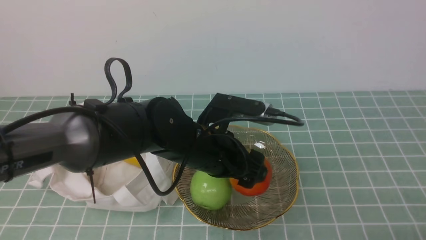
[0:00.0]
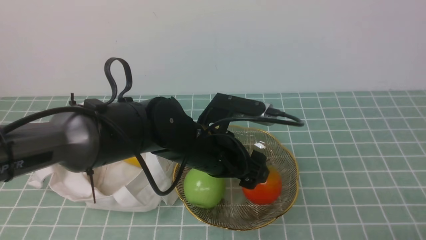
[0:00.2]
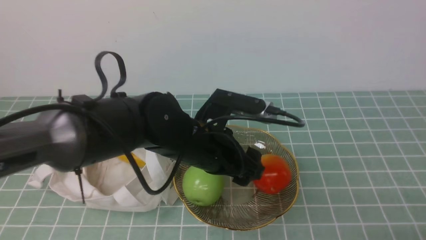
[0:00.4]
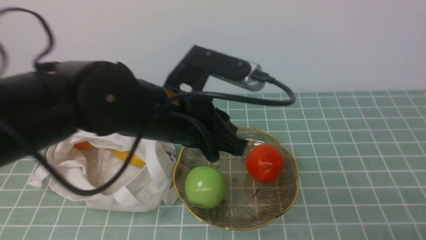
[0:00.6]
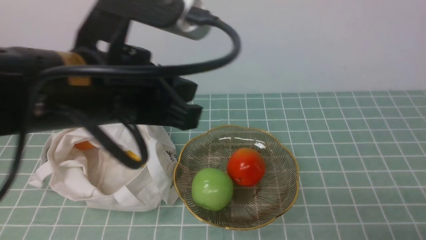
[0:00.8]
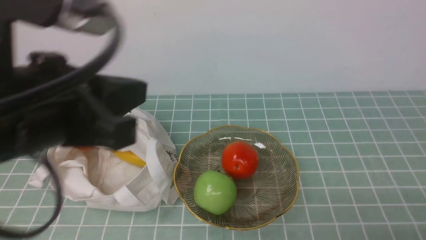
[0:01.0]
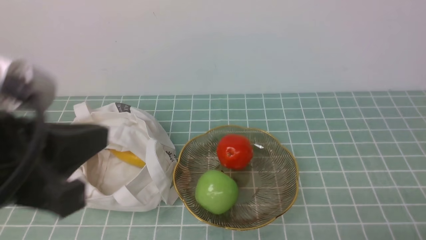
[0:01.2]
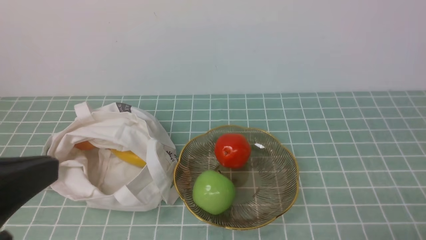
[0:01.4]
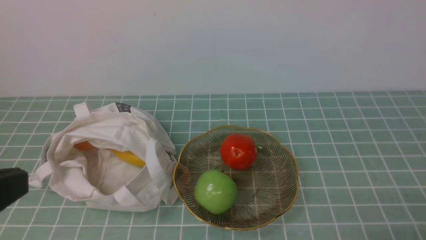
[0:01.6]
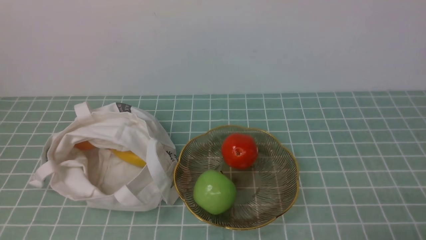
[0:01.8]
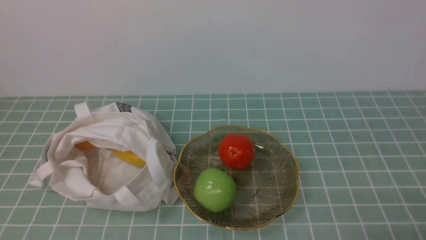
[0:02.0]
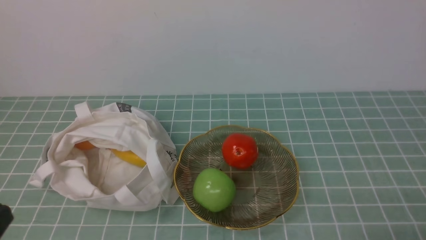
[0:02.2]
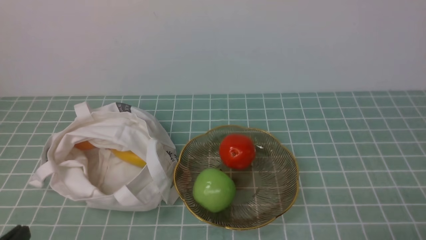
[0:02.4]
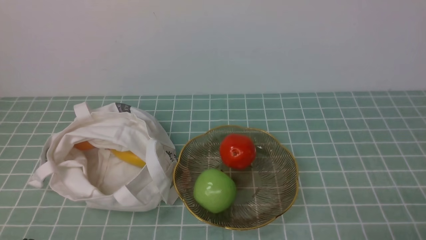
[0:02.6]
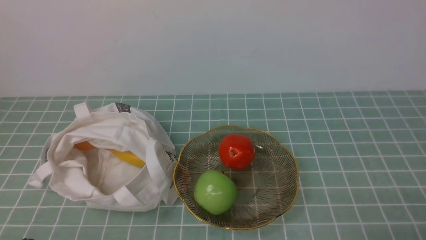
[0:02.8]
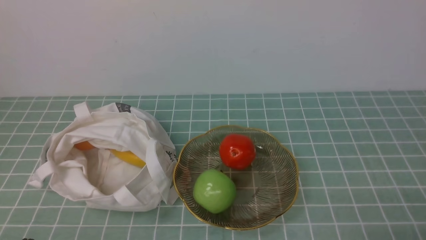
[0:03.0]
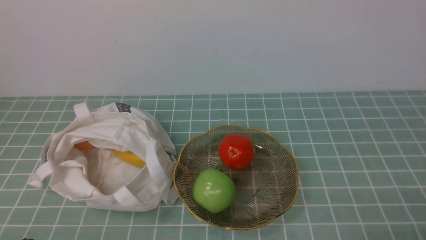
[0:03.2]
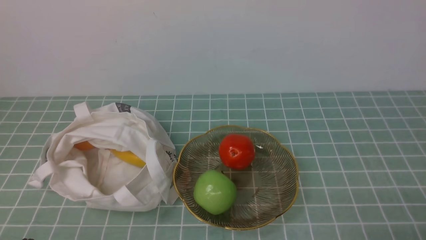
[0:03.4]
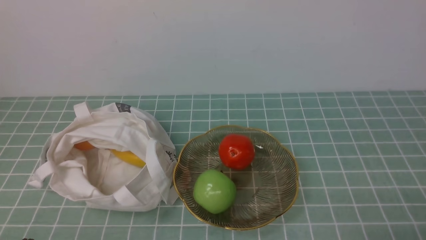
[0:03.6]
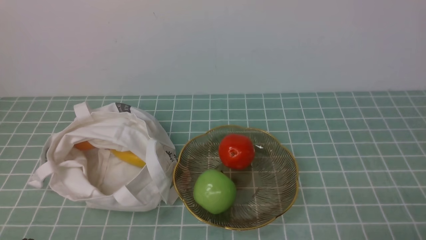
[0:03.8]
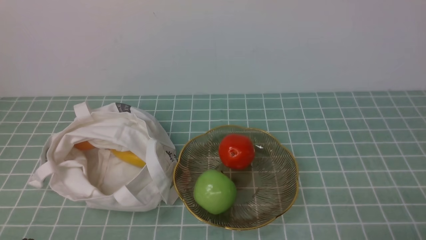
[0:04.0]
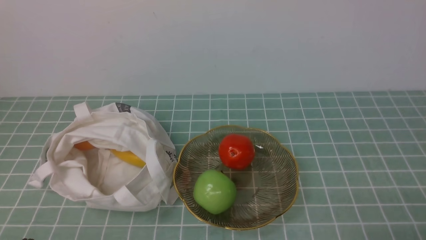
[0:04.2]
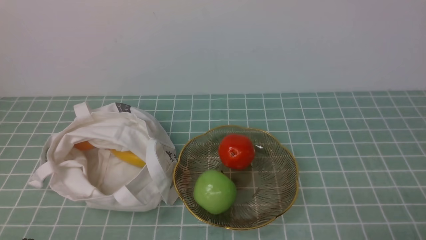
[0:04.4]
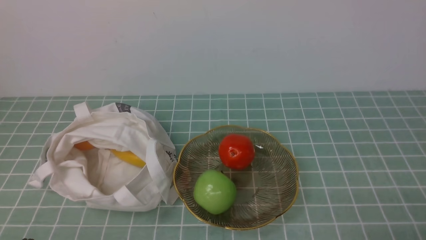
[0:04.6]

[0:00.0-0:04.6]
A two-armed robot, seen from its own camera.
0:00.0 to 0:01.6: The left gripper heads backward, to the left and upward, covering about 35 cm, and closes up.
0:01.6 to 0:03.0: The left gripper goes roughly 20 cm downward.
0:03.0 to 0:04.6: Both grippers stay about where they are.

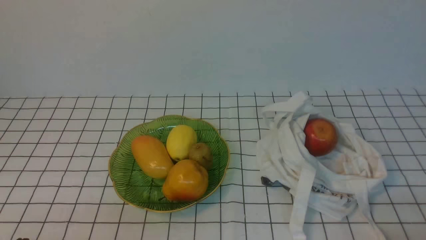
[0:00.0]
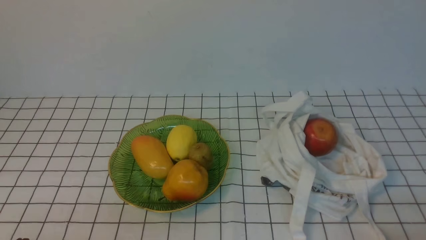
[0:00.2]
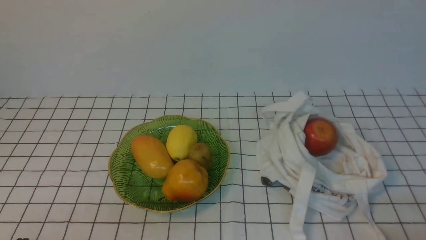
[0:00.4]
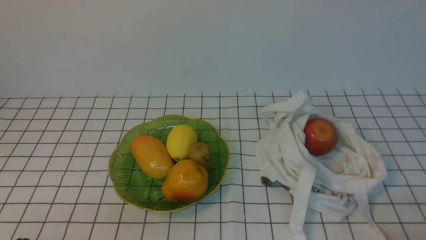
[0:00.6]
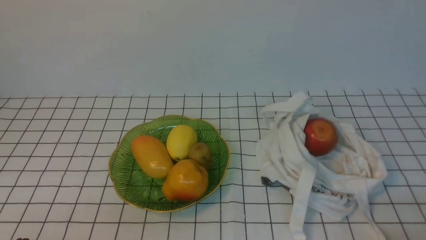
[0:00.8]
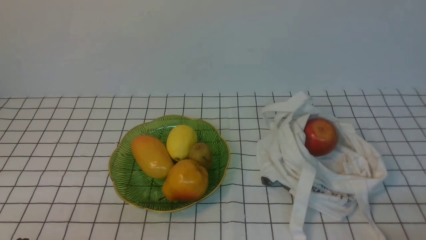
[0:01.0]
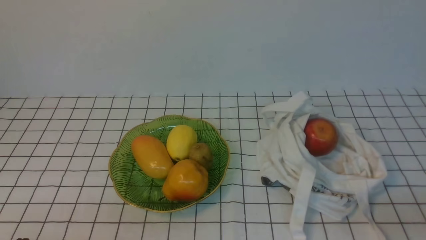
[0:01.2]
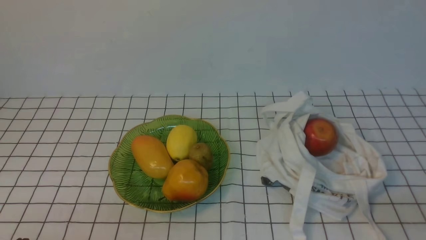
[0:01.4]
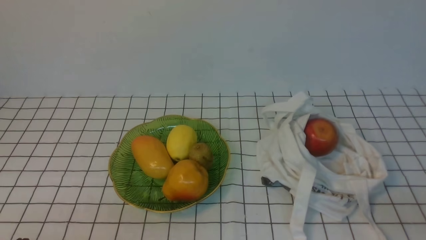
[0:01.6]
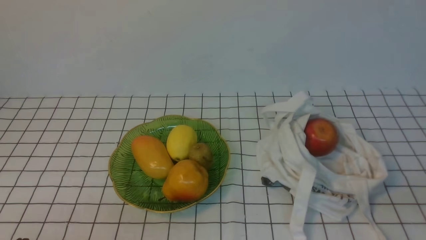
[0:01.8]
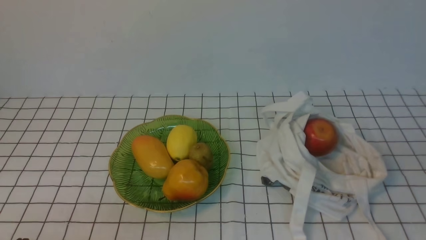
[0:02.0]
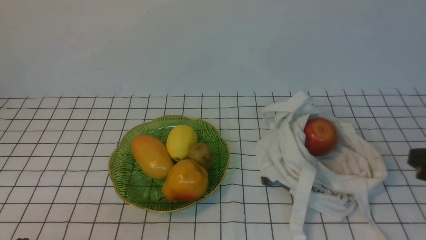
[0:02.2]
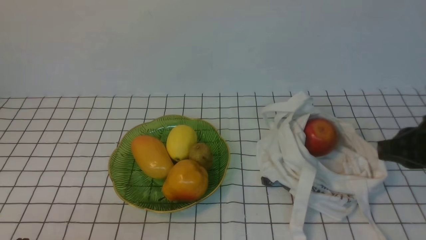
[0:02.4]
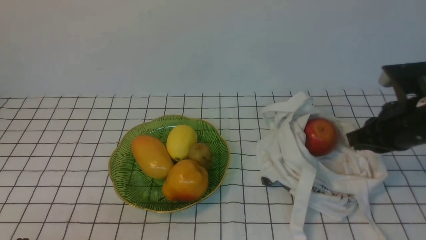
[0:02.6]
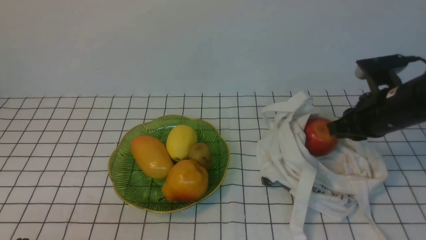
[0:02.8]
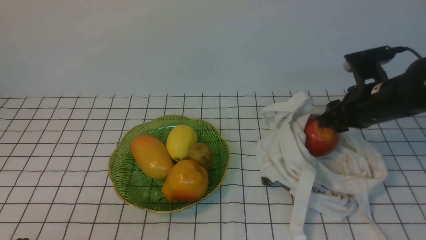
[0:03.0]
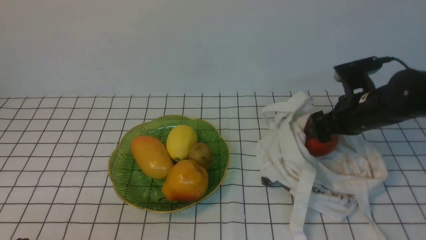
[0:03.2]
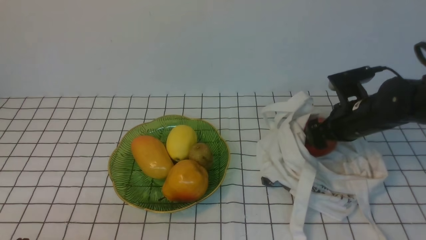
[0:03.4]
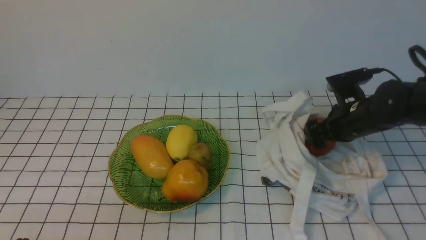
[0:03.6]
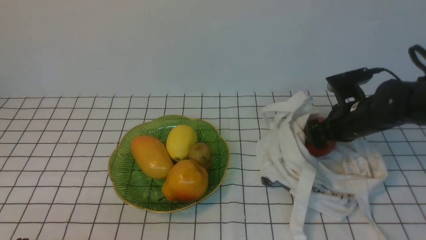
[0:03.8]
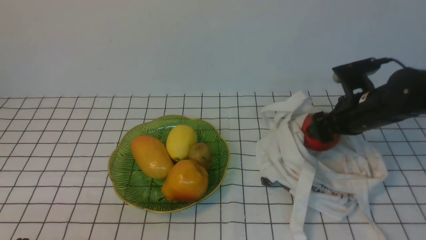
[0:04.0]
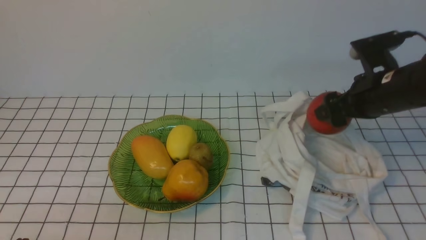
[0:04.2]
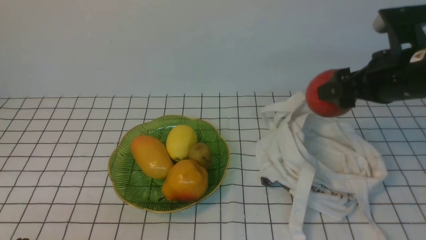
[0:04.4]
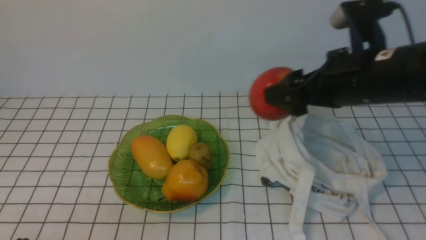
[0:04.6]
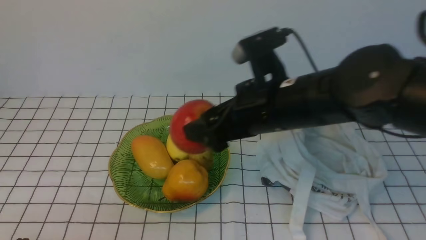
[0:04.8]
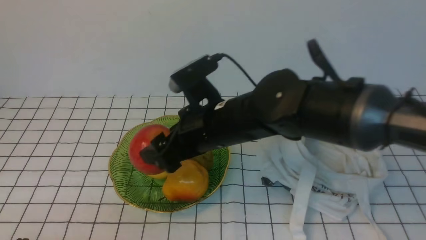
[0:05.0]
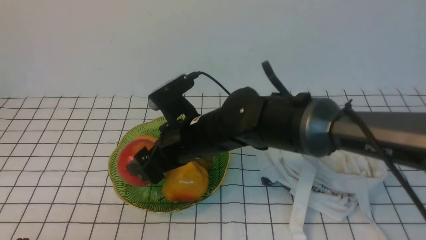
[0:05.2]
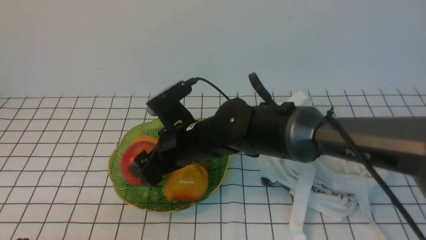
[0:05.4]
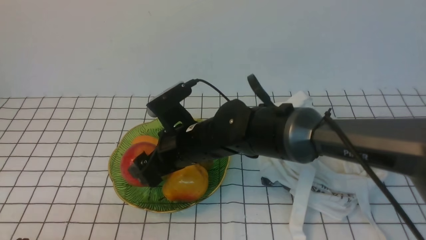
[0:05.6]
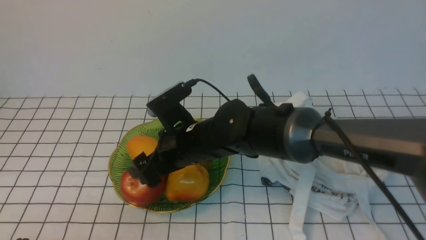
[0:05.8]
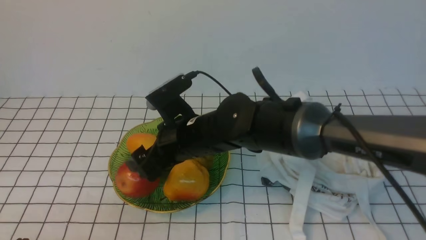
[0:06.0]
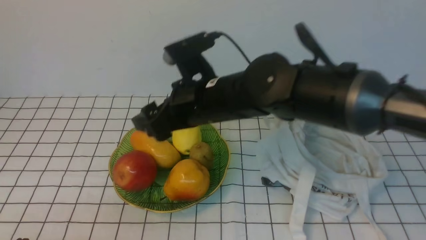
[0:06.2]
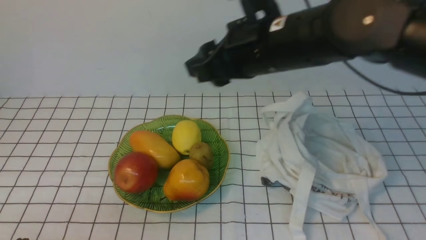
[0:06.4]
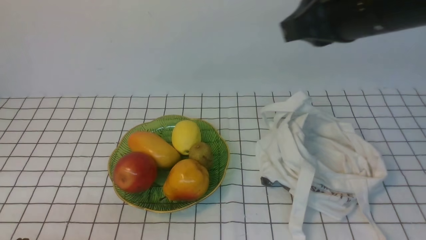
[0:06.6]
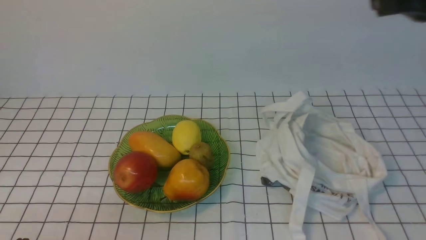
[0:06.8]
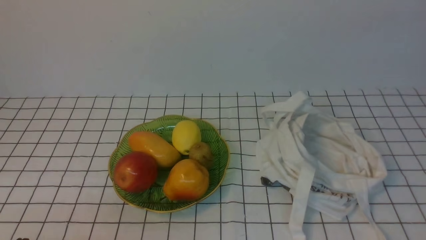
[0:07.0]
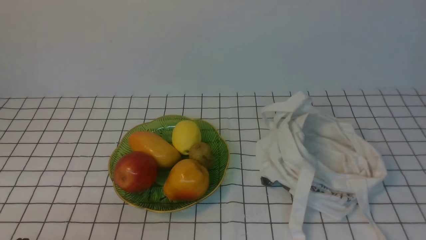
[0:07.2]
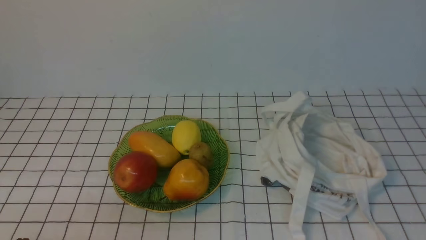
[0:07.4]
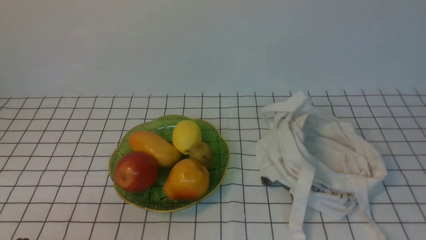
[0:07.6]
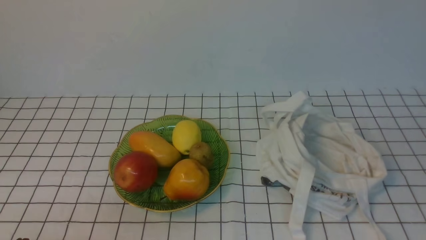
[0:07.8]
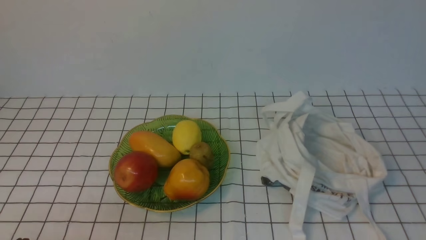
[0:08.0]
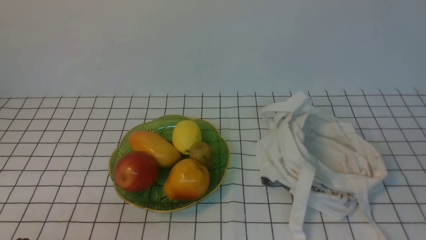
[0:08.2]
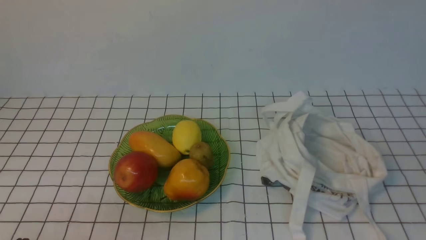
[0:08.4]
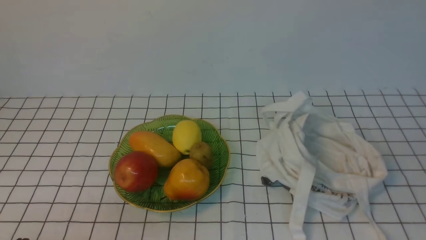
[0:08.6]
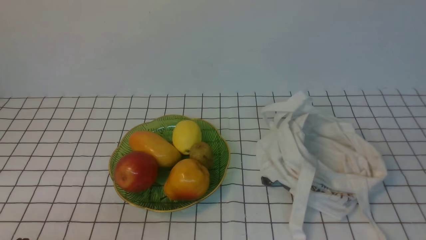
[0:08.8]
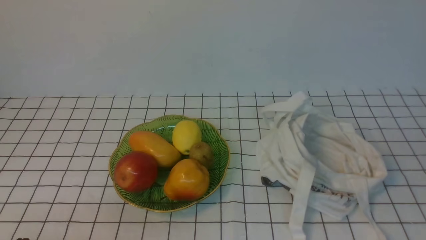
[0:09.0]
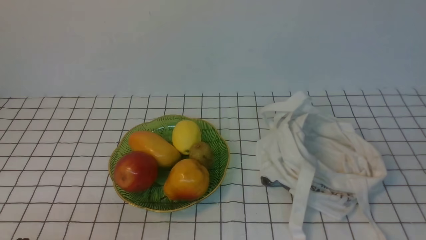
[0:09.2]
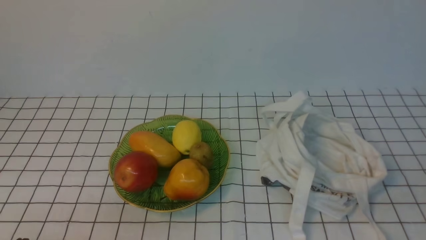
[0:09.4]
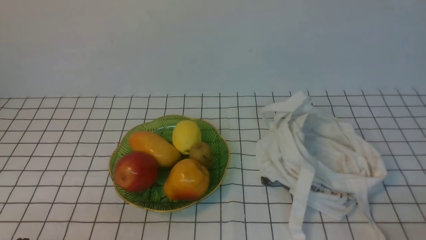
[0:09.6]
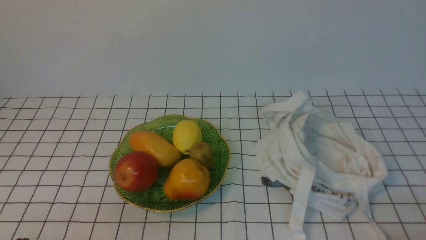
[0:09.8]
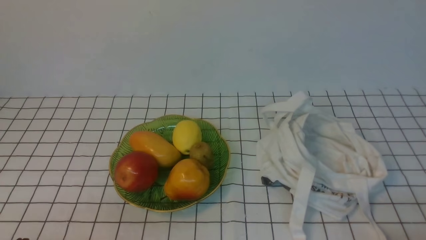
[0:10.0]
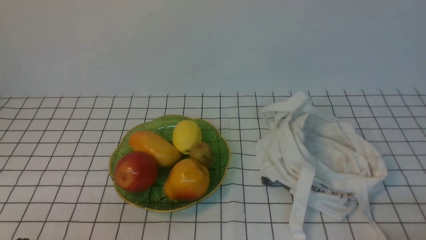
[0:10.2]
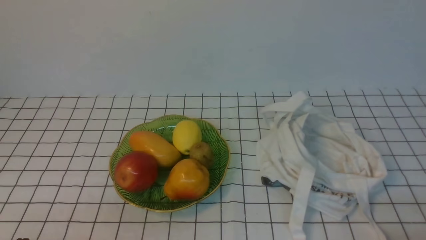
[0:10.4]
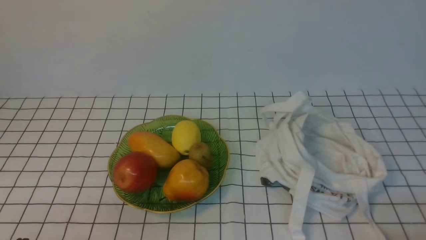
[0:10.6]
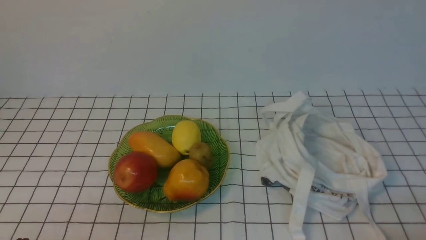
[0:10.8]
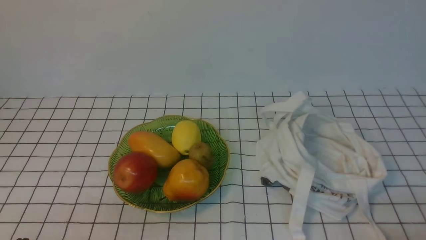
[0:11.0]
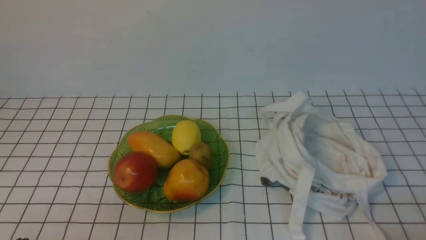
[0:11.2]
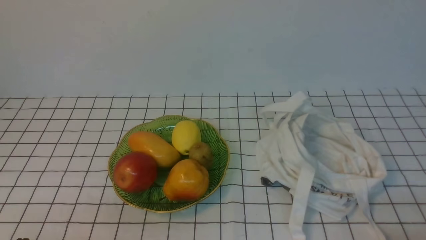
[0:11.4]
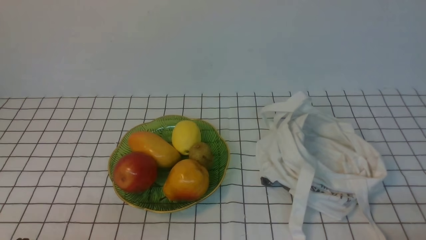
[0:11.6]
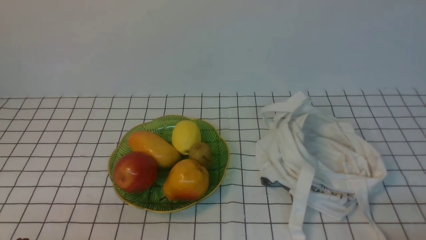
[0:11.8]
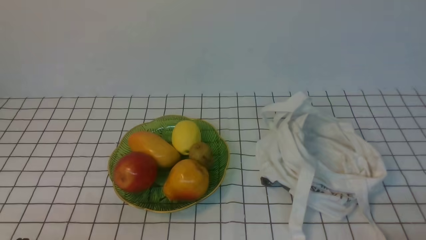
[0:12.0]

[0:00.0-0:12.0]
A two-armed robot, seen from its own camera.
Step, 0:00.0 to 0:04.0: use the right arm to grab an apple from the bag.
Step, 0:04.2 to 0:05.8: use the right arm to put the apple into the empty plate on the left.
0:01.6 to 0:03.0: The right gripper is displaced forward by roughly 30 cm, and opens its fingers.
0:03.0 to 0:04.4: The right gripper goes about 10 cm upward.
0:04.4 to 0:06.0: The right gripper shifts some 25 cm to the left.
0:06.0 to 0:07.6: The right gripper goes roughly 50 cm to the right, backward and upward, and closes up.
0:10.4 to 0:12.0: The two grippers keep their place.
